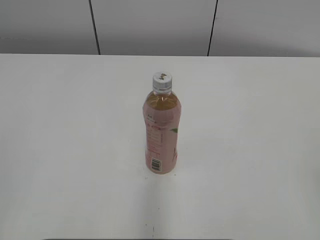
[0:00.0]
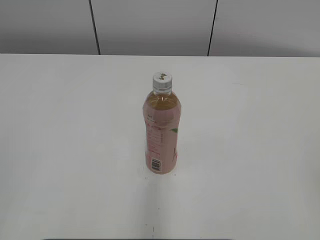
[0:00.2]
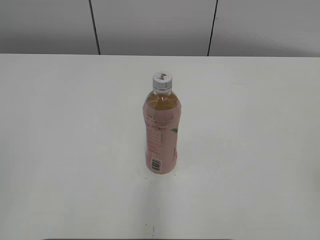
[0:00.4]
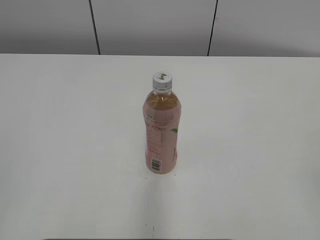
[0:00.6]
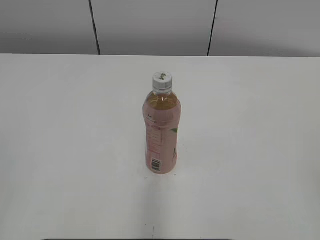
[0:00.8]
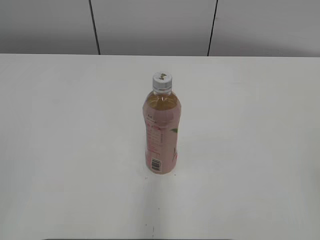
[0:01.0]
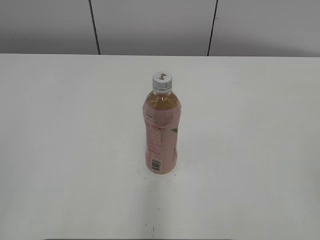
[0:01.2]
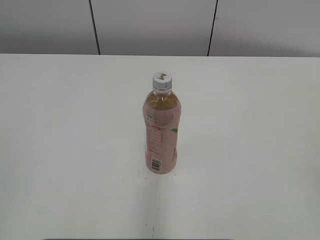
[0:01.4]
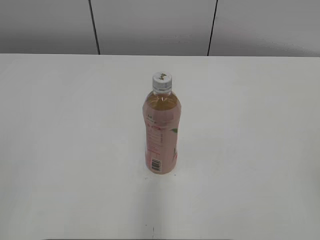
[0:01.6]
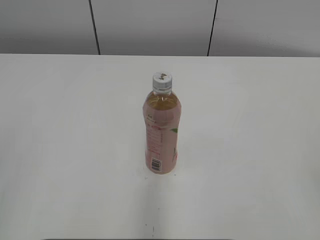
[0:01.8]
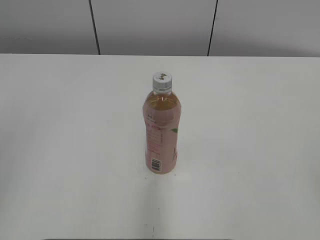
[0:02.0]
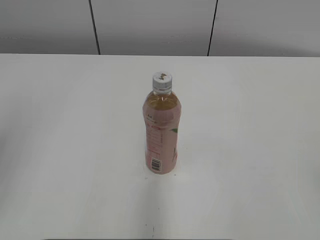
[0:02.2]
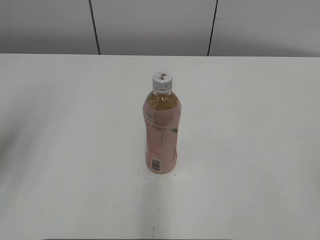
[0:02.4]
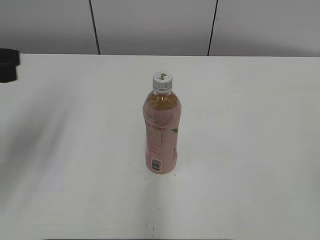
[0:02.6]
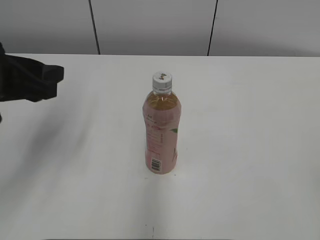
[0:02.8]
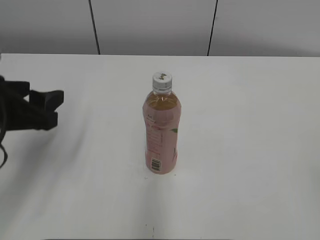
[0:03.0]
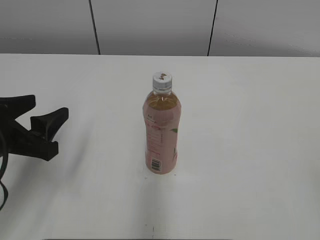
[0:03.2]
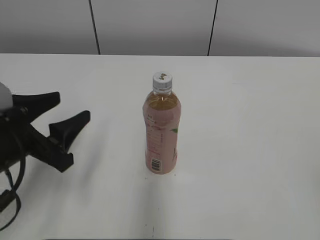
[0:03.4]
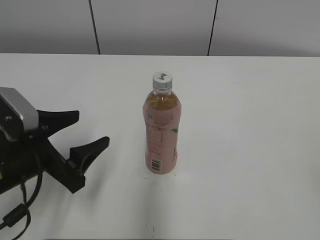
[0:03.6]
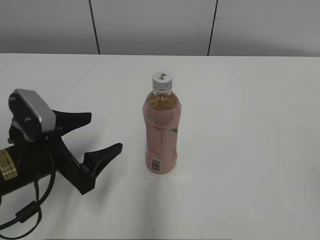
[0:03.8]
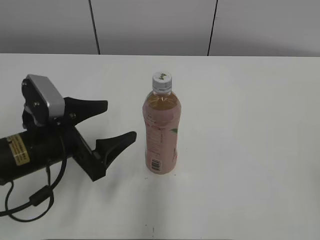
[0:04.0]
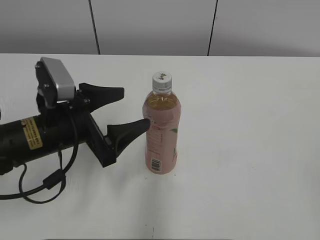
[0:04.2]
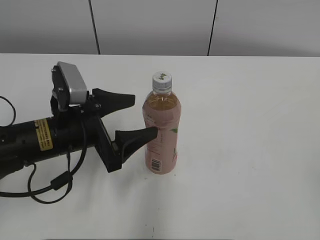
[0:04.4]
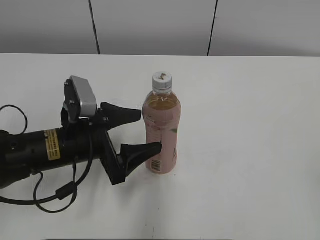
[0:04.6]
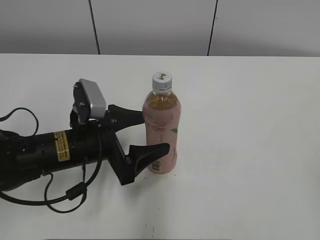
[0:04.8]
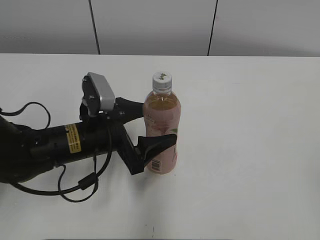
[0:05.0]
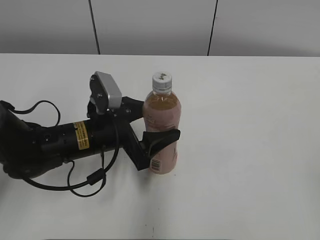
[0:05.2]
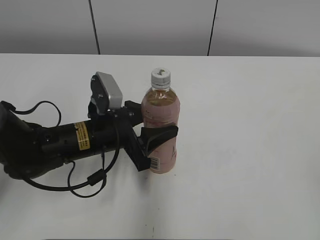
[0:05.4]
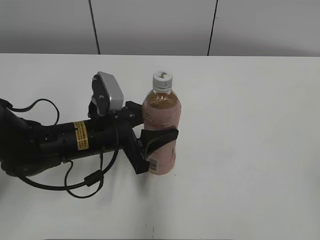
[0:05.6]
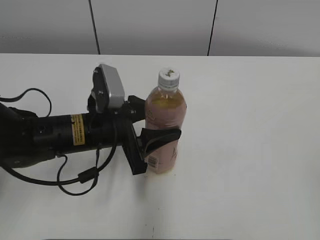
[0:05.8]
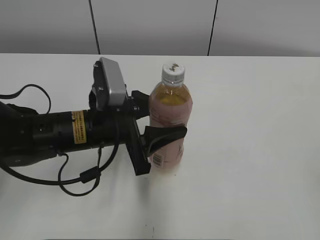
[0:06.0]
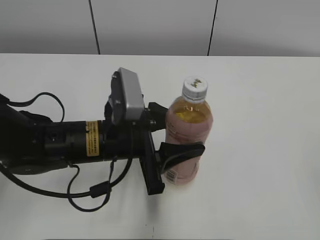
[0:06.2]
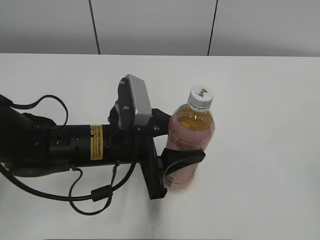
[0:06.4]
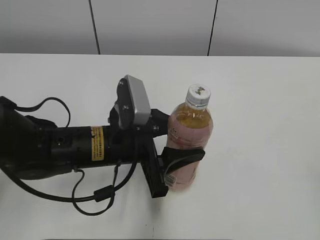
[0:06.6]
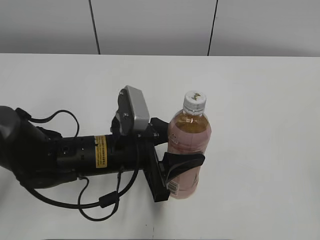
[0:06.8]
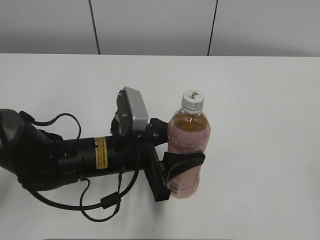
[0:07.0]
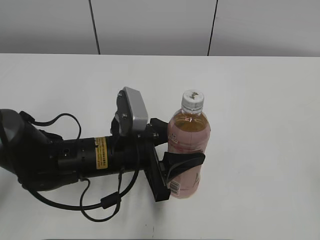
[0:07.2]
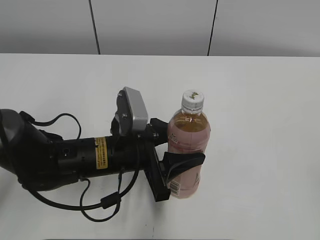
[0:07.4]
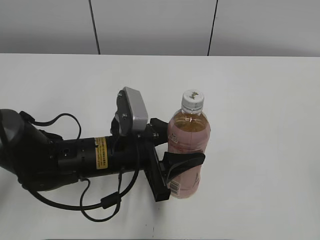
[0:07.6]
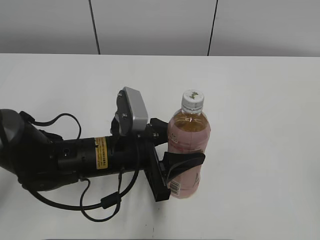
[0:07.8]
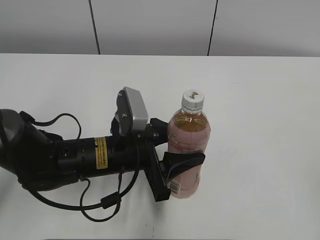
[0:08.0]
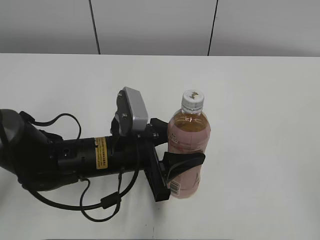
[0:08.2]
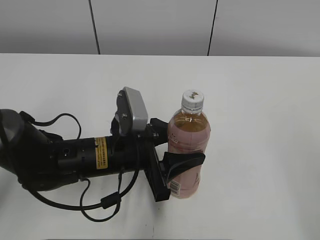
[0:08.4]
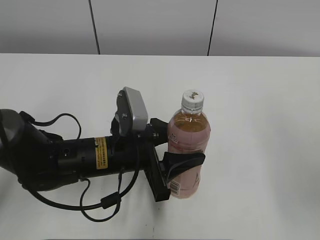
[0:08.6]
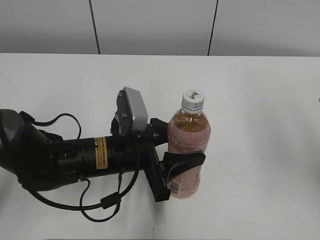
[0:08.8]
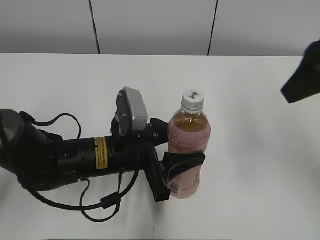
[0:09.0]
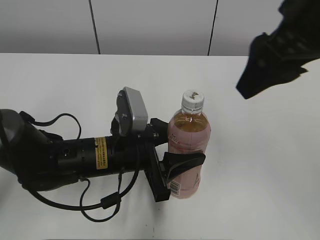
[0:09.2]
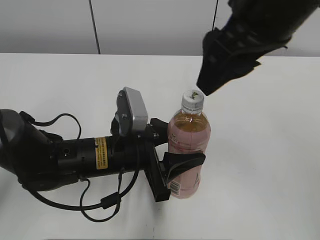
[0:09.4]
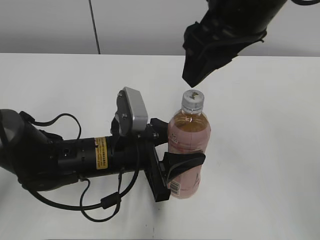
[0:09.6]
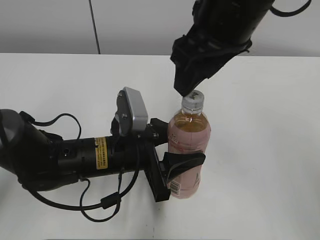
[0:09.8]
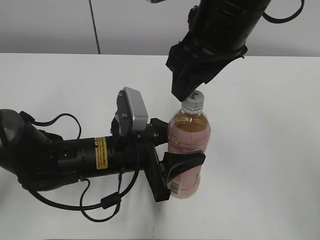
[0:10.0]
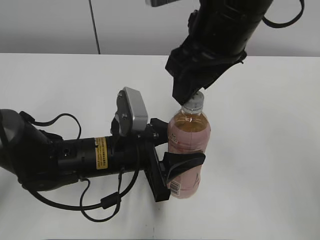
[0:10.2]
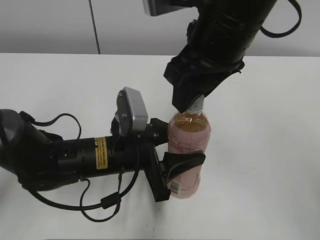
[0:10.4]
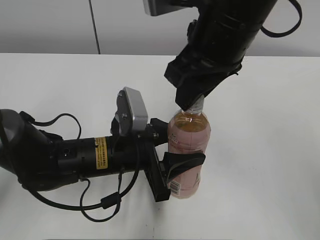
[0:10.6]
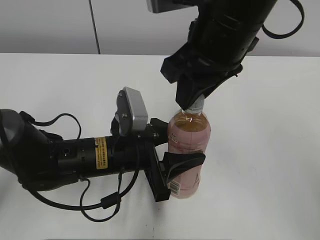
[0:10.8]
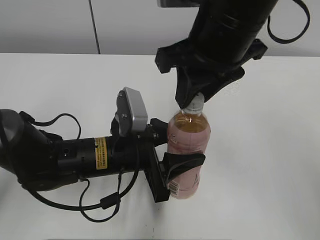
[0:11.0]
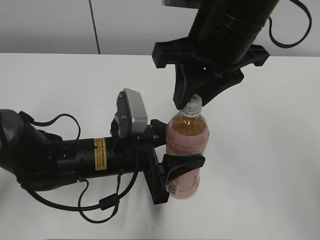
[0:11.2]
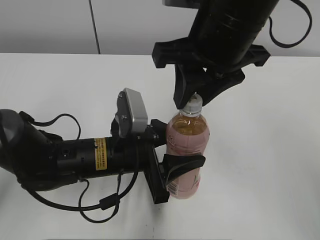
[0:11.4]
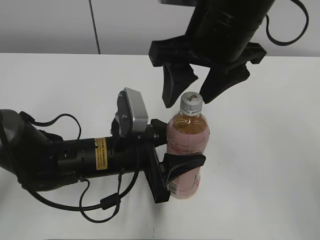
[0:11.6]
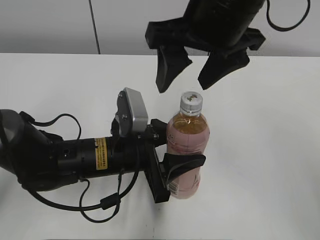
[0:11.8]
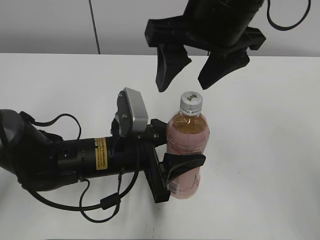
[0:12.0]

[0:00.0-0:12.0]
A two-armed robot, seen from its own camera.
Step, 0:00.0 to 0:05.4: Grasp the bottle and move it to the center of the table with the left gripper.
Step, 0:05.8 to 0:07.2: Lift the bottle and move it to the center of the table with the left gripper.
0:01.6 to 0:03.0: The left gripper shifts some 25 cm forward and downward, and opens its fingers.
0:03.0 to 0:04.4: The left gripper travels to the right and downward by approximately 10 cm, and opens.
0:04.4 to 0:06.0: The left gripper closes its fingers.
0:06.0 to 0:07.6: The left gripper ends up roughly 5 cm from where it was.
0:07.6 to 0:09.0: The right gripper goes approximately 25 cm forward.
0:09.0 to 0:10.4: The right gripper heads to the left, covering roughly 15 cm.
0:10.4 to 0:12.0: The right gripper opens.

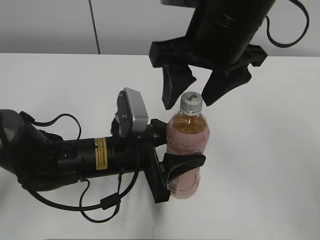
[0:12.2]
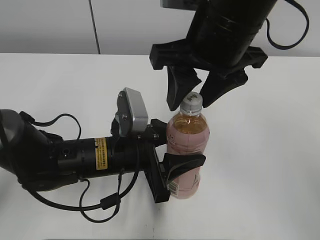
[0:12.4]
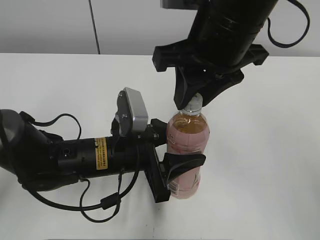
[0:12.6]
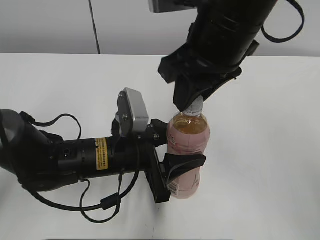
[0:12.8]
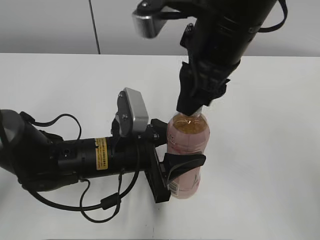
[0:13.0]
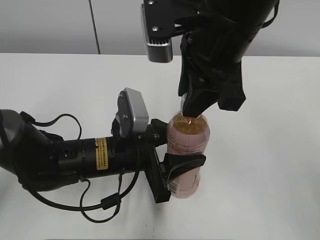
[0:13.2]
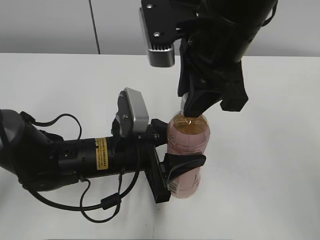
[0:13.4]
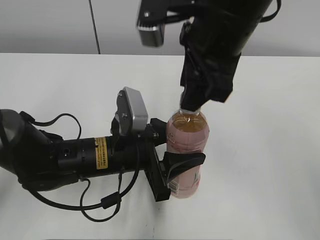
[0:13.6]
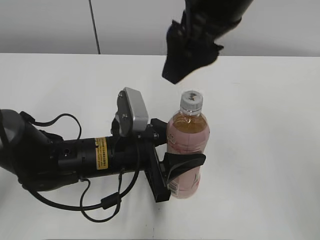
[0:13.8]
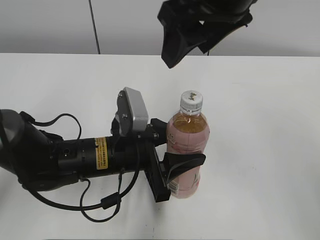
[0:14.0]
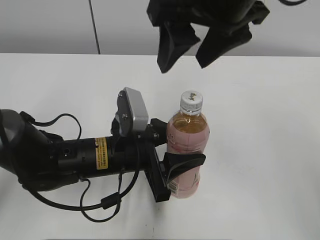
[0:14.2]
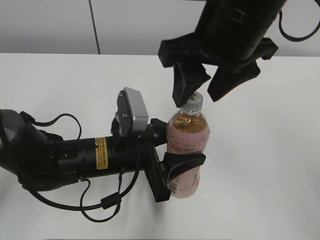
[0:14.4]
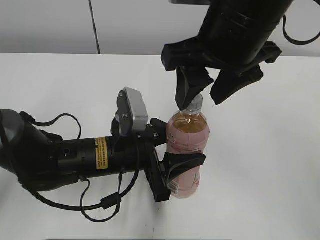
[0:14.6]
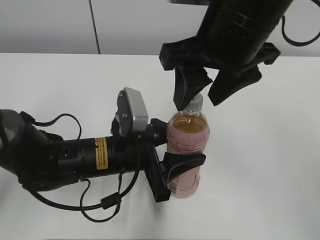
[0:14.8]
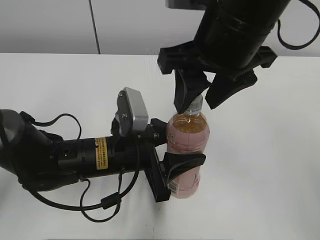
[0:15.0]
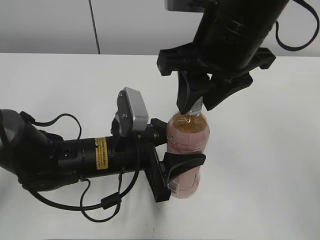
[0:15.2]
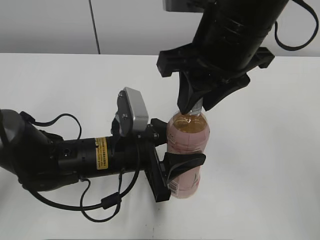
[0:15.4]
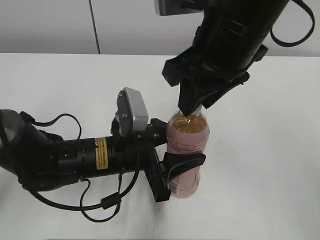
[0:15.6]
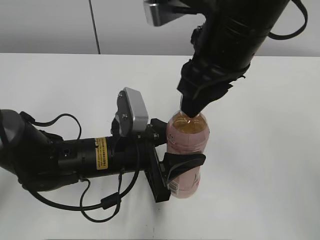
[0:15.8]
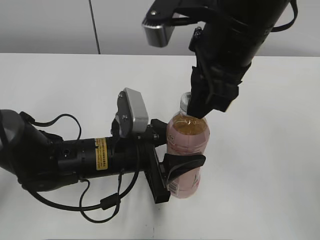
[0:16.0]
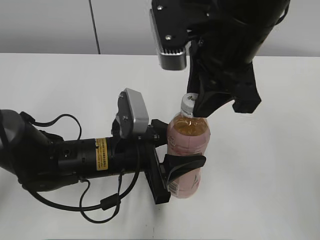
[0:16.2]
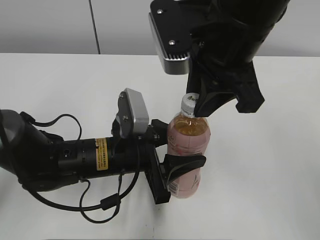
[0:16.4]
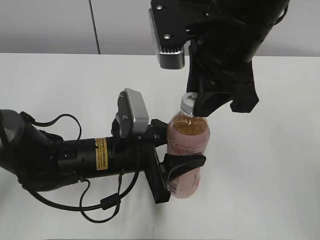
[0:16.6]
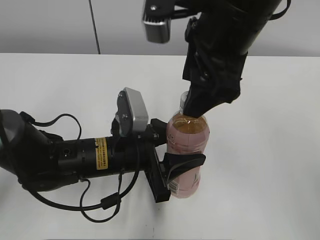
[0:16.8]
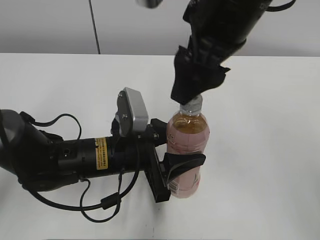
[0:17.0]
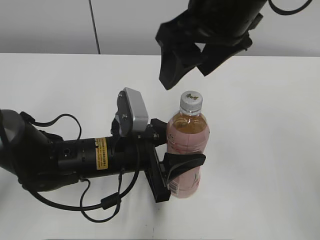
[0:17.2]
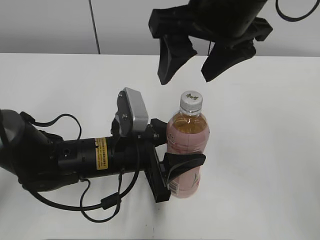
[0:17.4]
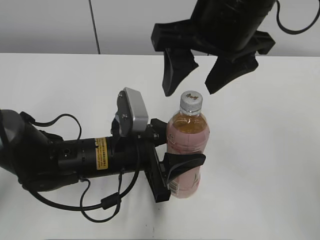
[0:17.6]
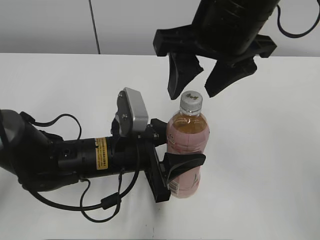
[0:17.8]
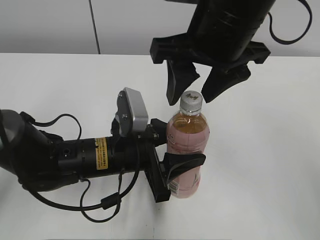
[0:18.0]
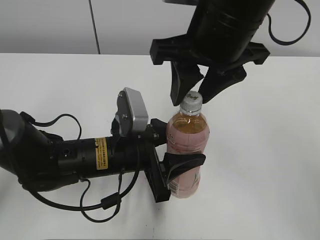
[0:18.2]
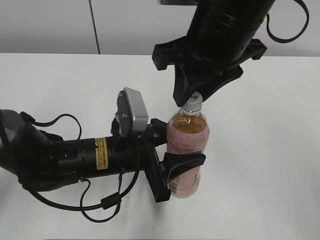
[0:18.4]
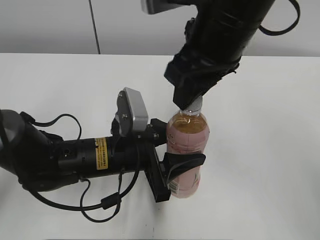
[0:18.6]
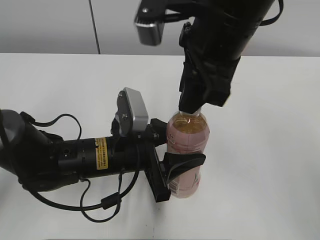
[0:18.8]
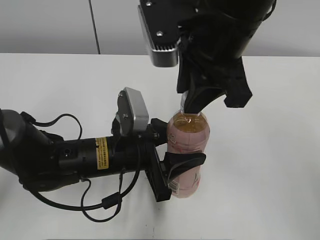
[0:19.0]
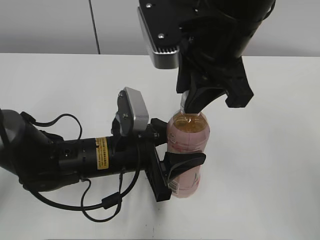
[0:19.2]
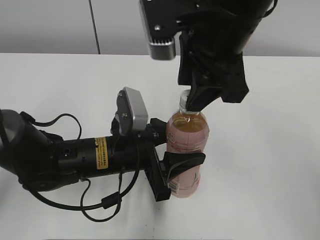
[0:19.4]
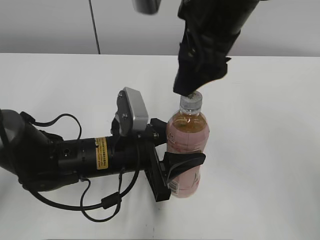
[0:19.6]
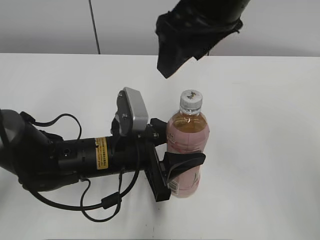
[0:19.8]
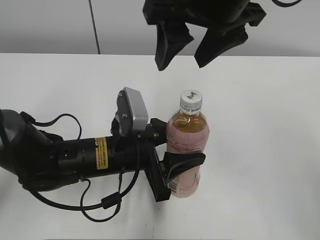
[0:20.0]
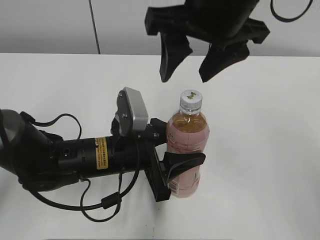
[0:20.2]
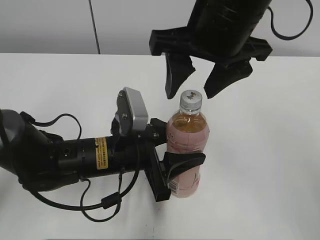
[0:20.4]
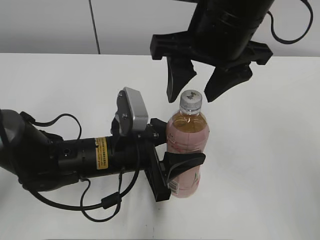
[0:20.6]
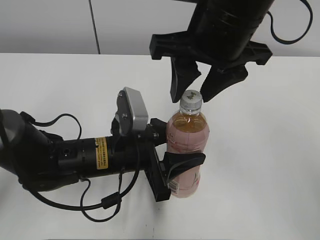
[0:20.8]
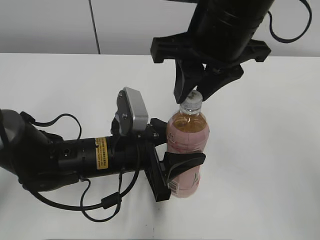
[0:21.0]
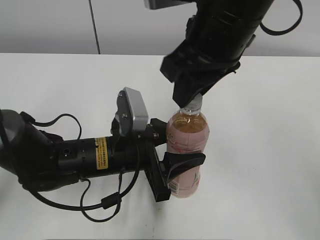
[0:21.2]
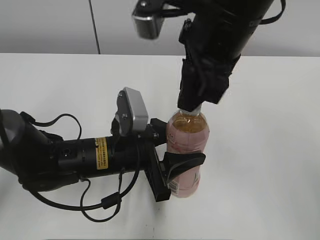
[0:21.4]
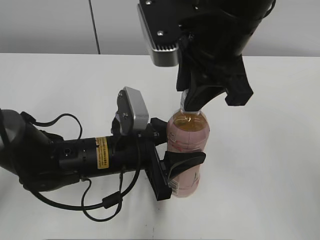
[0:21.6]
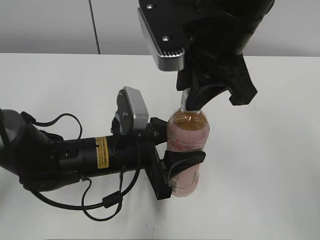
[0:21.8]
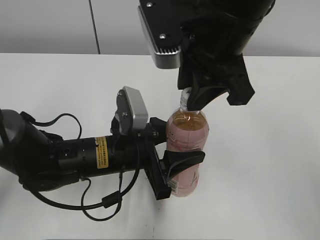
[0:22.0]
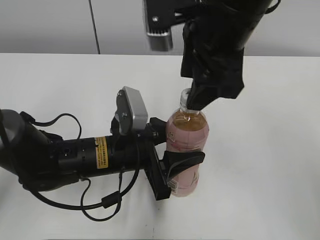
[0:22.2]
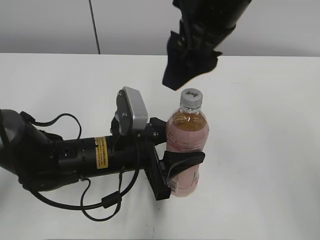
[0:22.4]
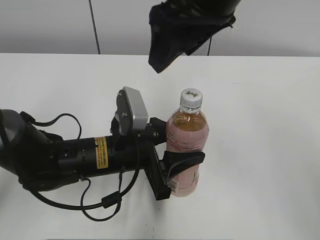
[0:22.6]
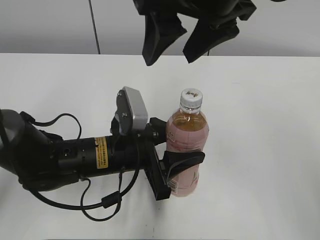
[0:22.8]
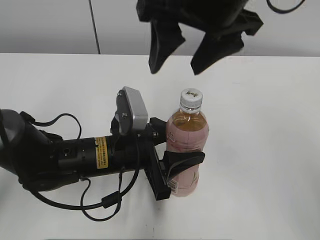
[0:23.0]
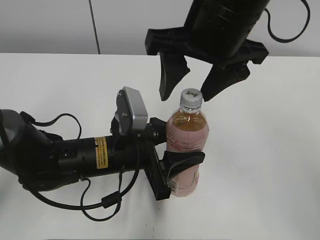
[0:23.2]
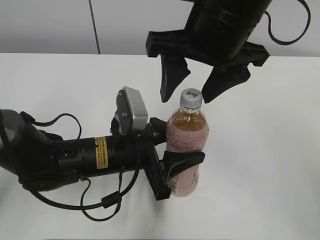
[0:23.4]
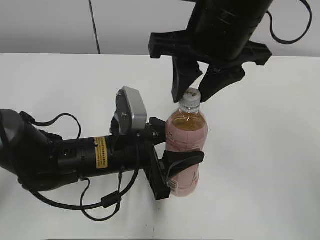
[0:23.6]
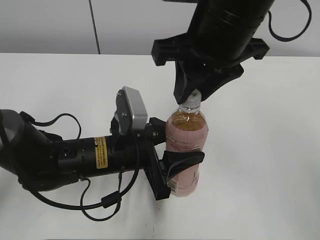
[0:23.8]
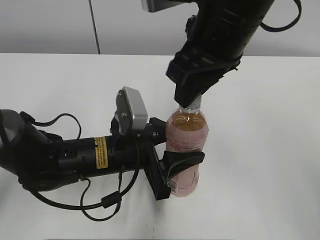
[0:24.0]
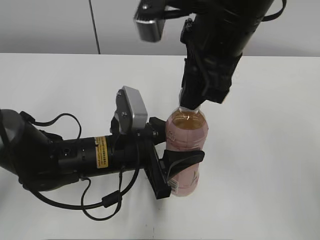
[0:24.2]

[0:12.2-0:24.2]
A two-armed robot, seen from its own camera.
0:12.2 to 0:13.8: The right gripper closes, then reopens.
0:13.8 to 0:15.2: The right gripper closes up.
0:16.6 to 0:18.2: The right gripper opens, then closes once more.
0:18.2 to 0:19.8: The right gripper opens up.
0:19.8 to 0:21.2: The right gripper closes its fingers.
0:21.2 to 0:22.6: The right gripper opens.
0:22.6 to 0:24.2: The right gripper closes up.
